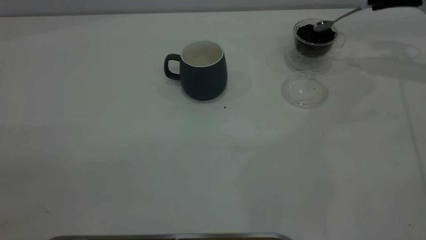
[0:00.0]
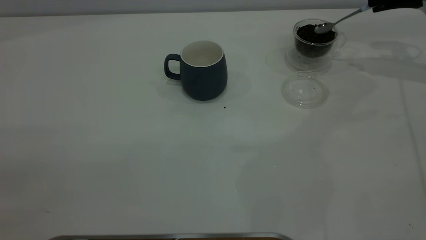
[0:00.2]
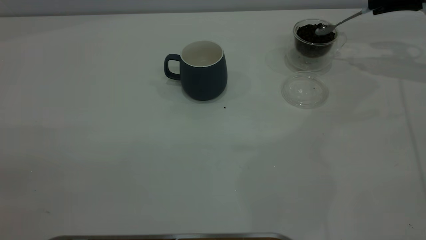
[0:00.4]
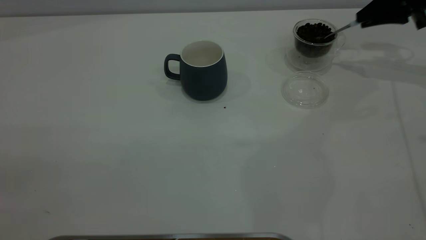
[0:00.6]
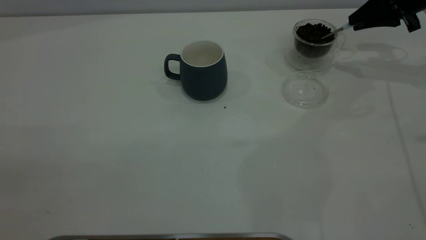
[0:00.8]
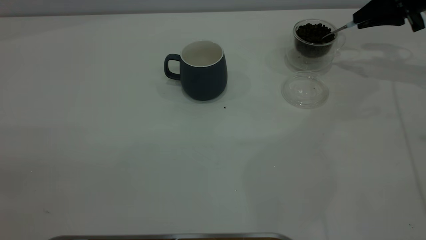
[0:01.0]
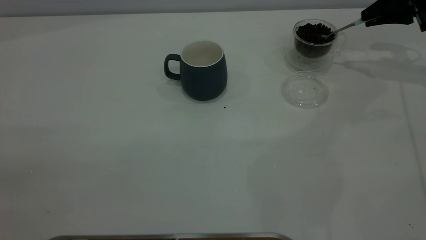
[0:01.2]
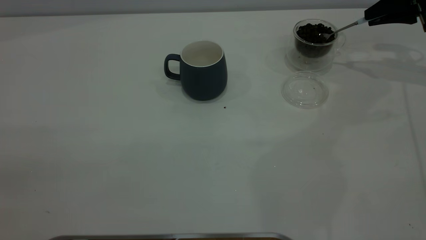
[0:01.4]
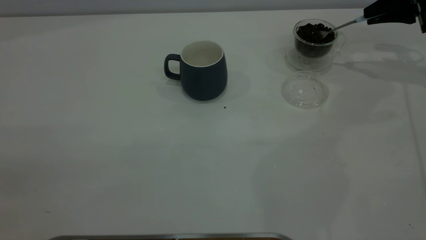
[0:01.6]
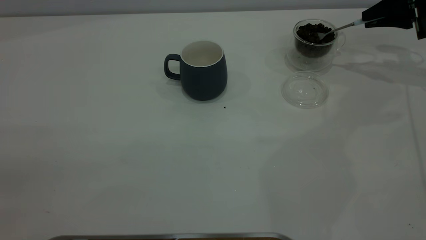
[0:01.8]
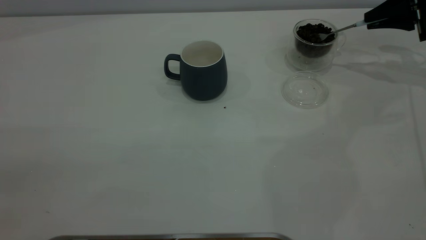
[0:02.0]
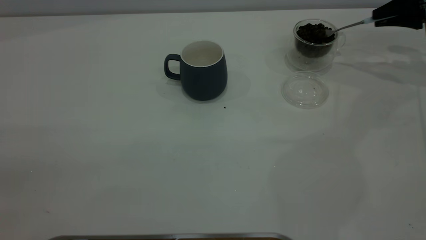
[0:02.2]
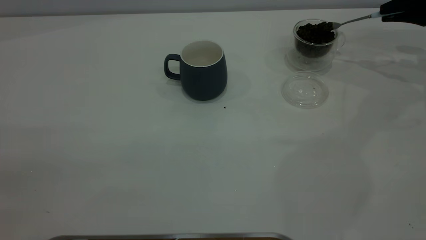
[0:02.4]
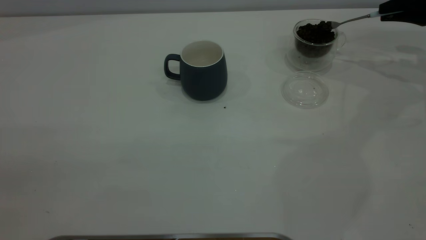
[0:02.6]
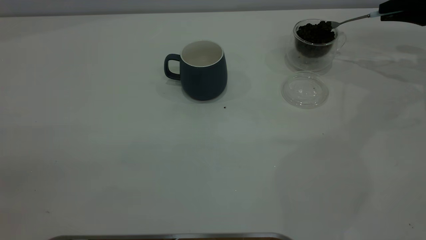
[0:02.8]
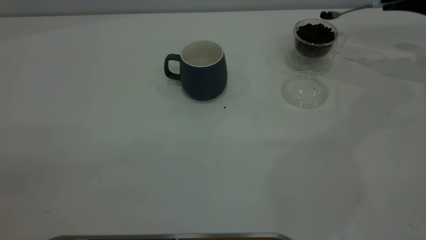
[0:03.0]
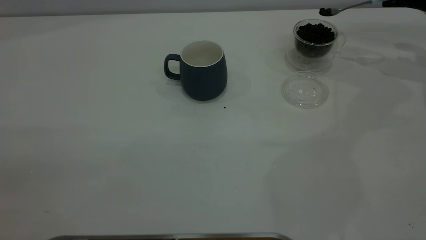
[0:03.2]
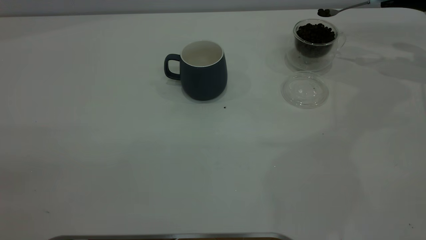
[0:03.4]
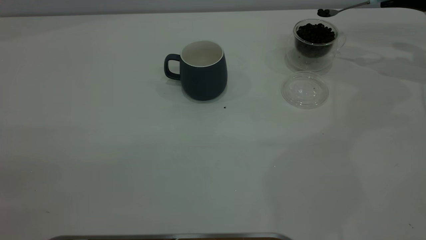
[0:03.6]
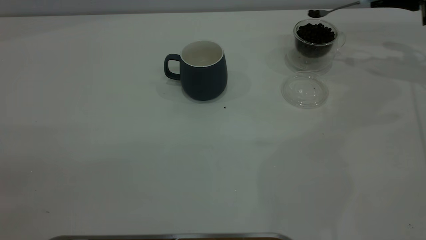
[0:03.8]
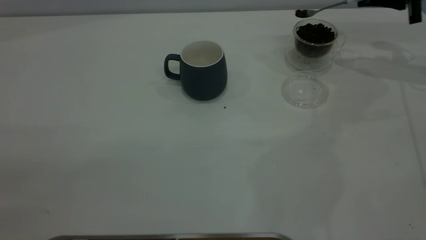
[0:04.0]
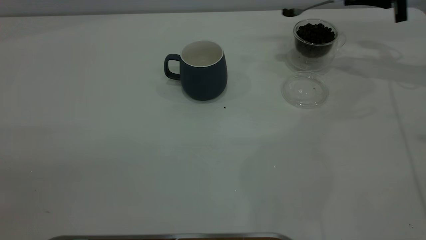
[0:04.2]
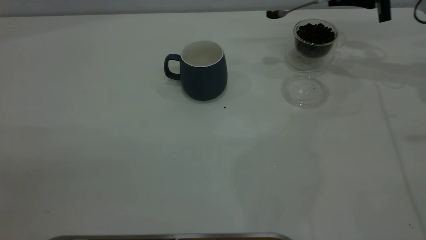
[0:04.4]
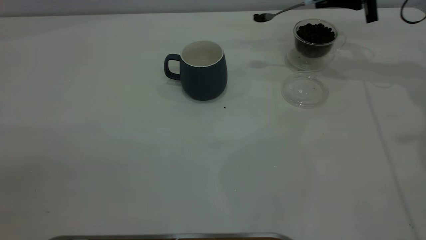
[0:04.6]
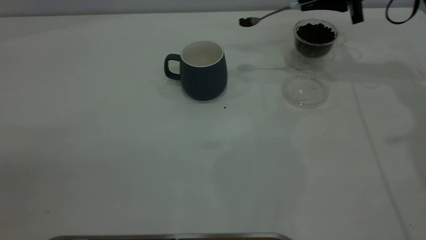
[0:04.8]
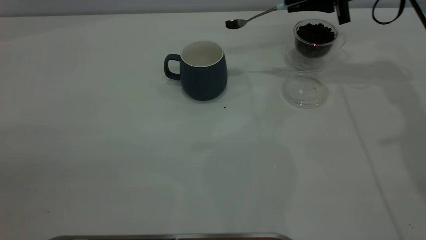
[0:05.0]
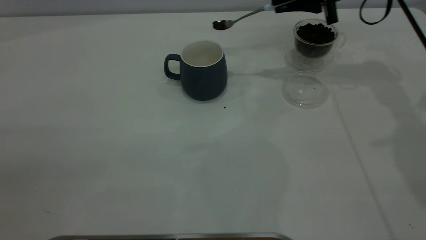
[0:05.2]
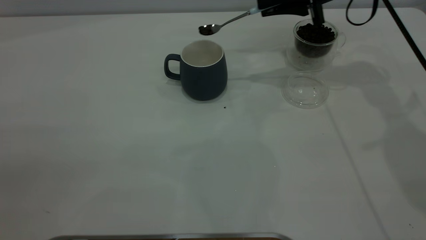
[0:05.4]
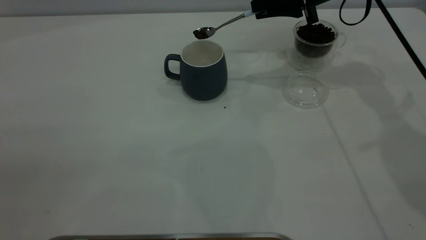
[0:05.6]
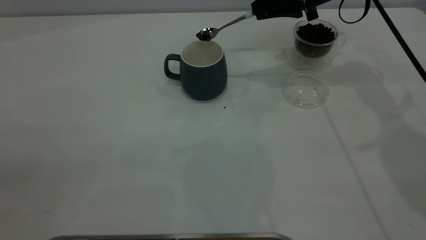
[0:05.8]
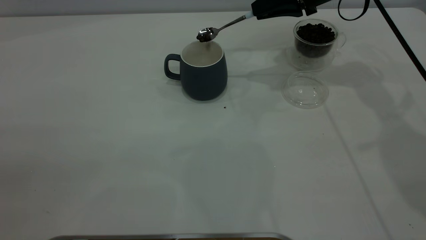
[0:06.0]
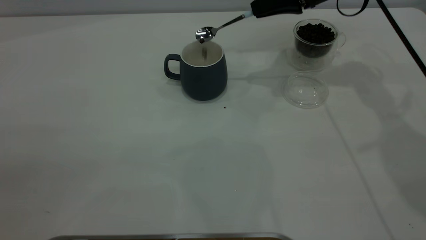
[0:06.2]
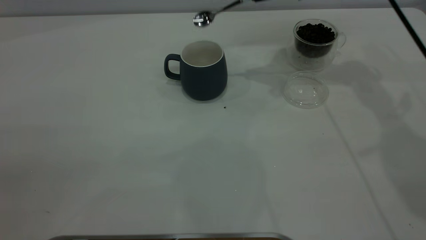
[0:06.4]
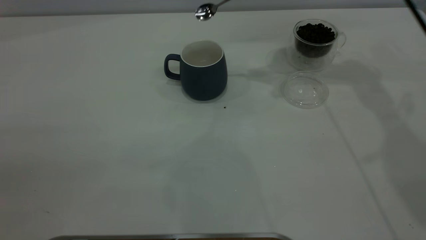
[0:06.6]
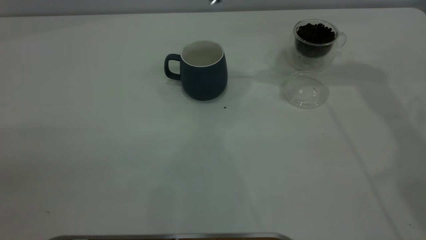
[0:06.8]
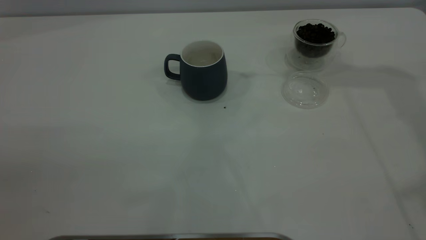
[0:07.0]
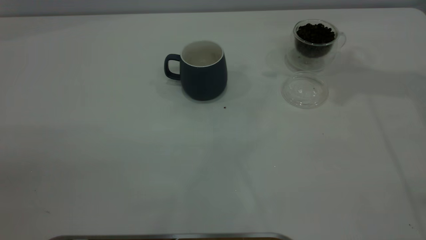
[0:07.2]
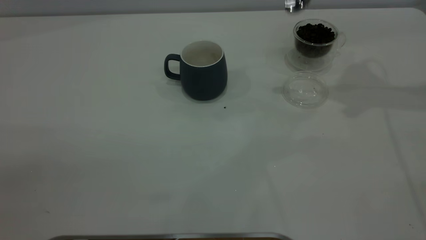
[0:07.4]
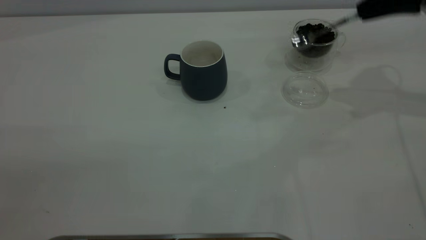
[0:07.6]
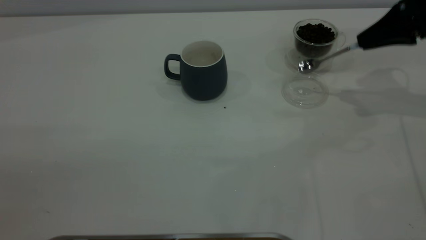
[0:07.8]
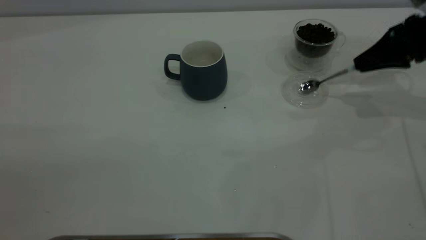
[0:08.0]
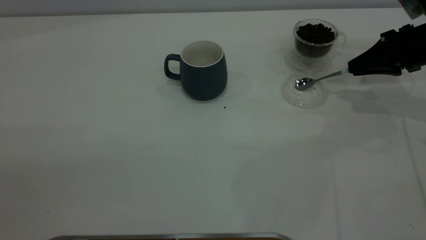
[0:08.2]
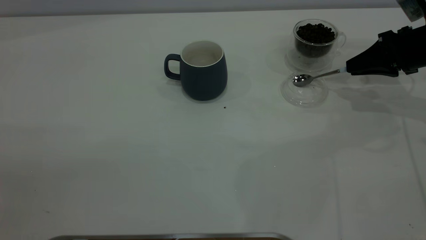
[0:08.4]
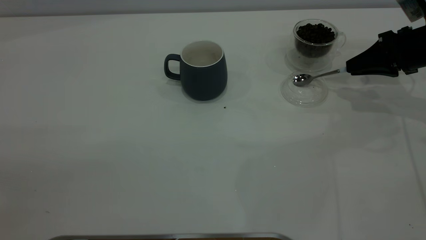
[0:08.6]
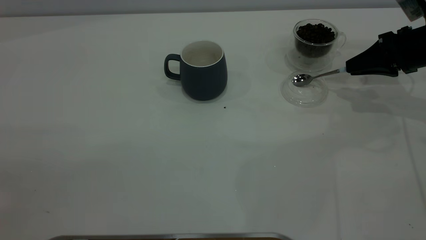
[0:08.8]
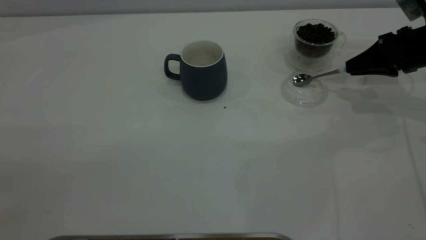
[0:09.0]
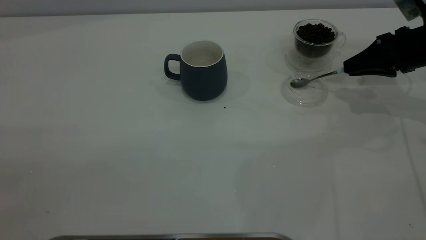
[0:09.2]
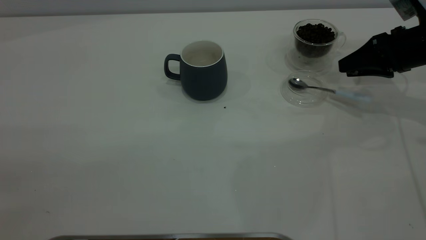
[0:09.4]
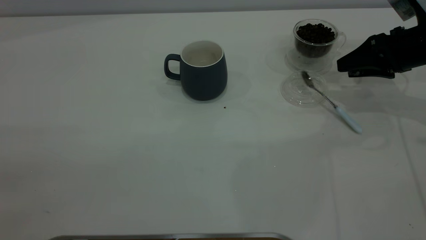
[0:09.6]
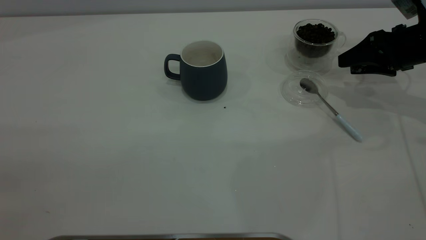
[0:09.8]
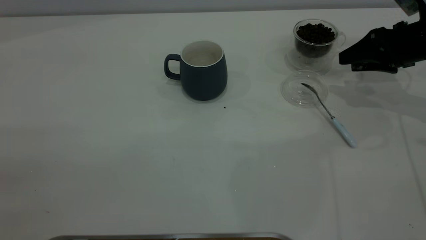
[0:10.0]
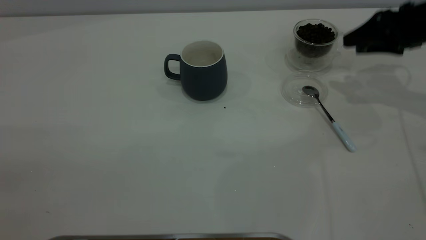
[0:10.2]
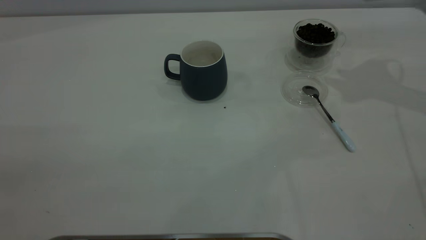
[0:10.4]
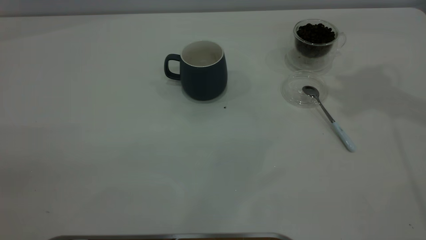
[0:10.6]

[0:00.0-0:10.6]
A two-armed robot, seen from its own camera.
Task of the whole recording: the left gripper place the grey cup in the center of the table, the right gripper take the blue spoon from the cup lid and scoop out the coffee beans from the coffee cup and put them into the grey cup, the right gripper put the spoon back into the cup lid.
Step, 0:00.0 to 0:06.2: Scoop a spoonful of beans into the cup.
Step, 0:06.6 to 0:10.0: Place the spoon back in its original place.
0:00.0 to 0:03.0: The grippers stay close to where they were, moving slightly.
0:03.0 to 0:04.6: The right gripper shifts roughly 15 cm to the left.
0:04.6 to 0:06.0: The right gripper travels to the left by some 10 cm.
0:06.0 to 0:07.6: The right gripper shifts roughly 15 cm to the right and backward, and reaches about 20 cm upward, then returns.
0:07.6 to 0:09.0: The right gripper goes some 10 cm downward.
0:09.0 to 0:10.6: The right gripper moves upward, some 30 cm, and opens up.

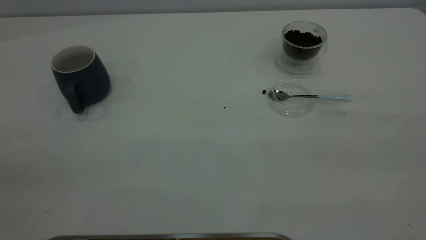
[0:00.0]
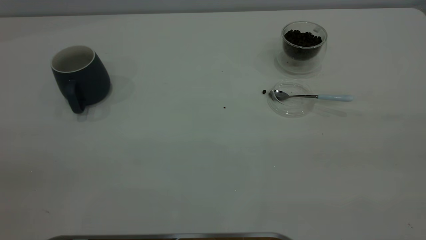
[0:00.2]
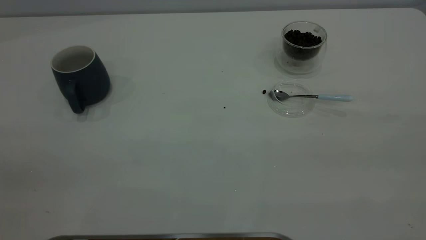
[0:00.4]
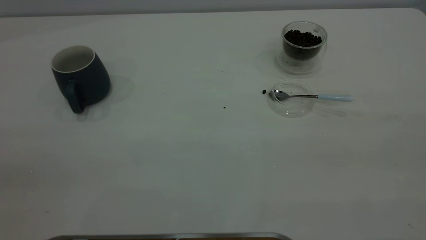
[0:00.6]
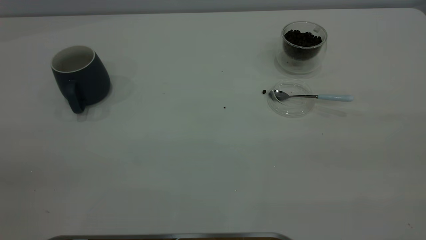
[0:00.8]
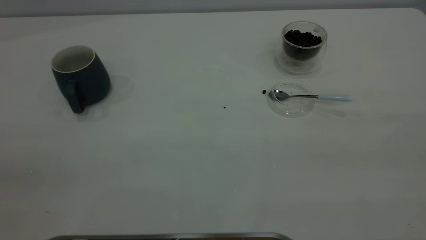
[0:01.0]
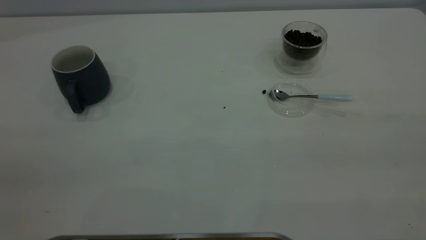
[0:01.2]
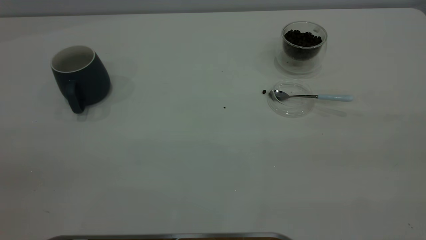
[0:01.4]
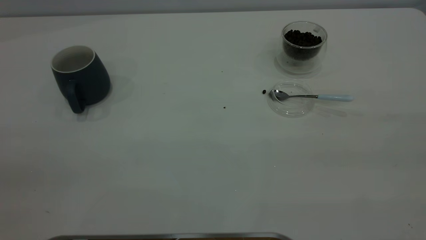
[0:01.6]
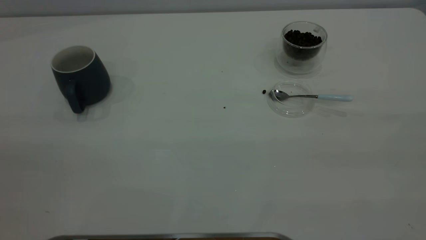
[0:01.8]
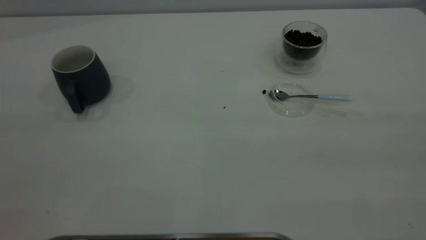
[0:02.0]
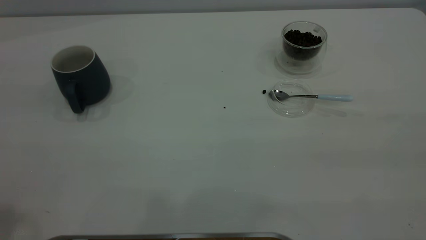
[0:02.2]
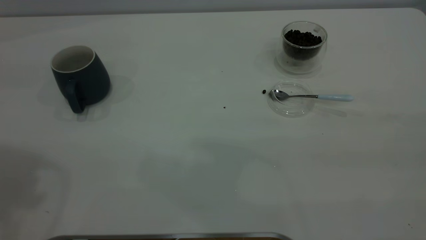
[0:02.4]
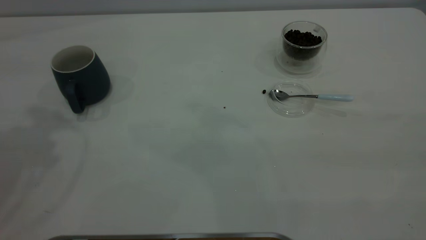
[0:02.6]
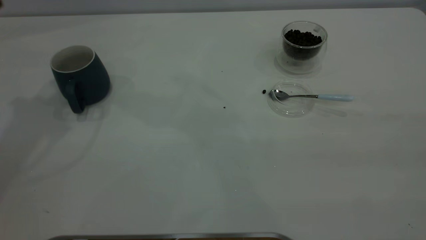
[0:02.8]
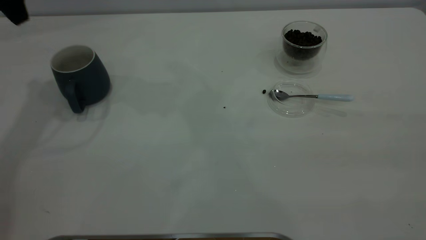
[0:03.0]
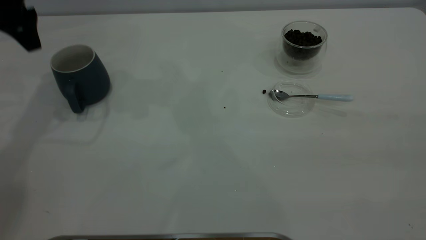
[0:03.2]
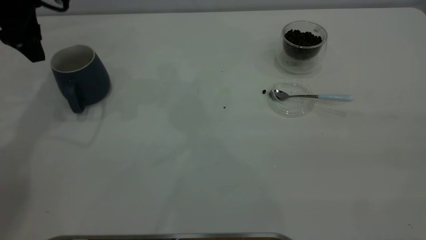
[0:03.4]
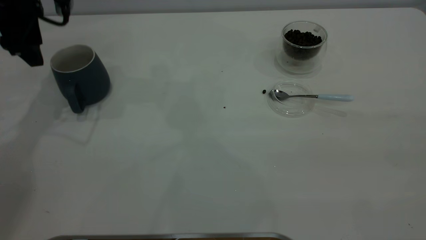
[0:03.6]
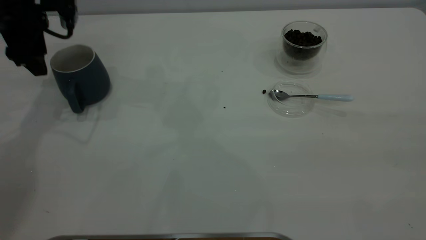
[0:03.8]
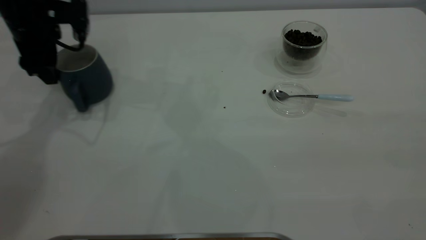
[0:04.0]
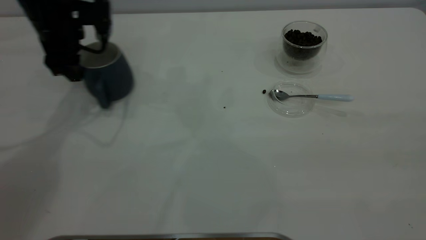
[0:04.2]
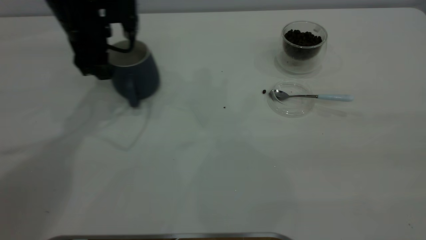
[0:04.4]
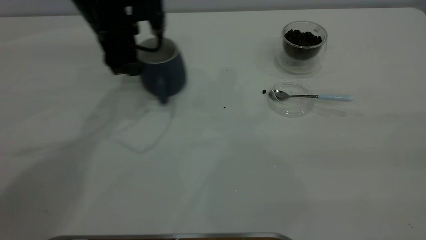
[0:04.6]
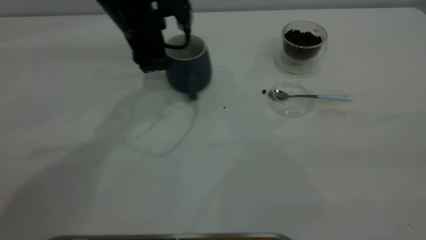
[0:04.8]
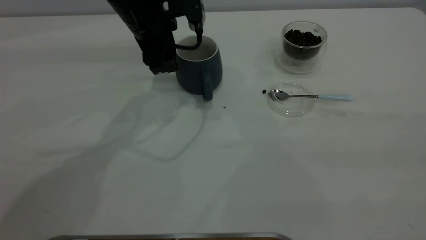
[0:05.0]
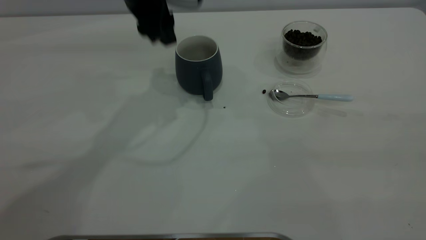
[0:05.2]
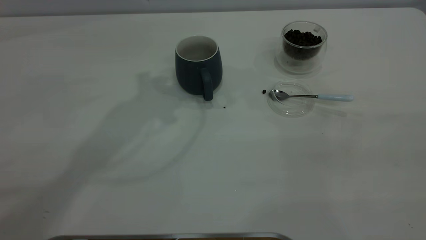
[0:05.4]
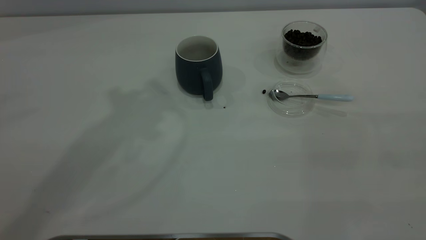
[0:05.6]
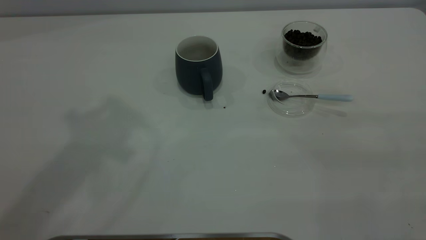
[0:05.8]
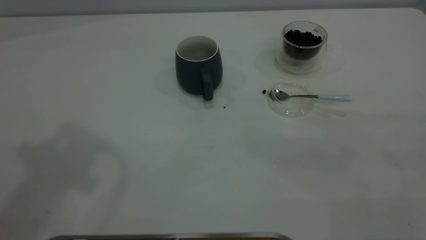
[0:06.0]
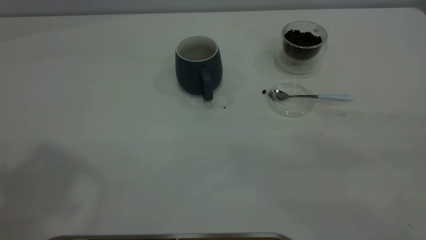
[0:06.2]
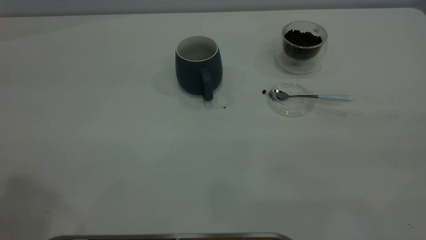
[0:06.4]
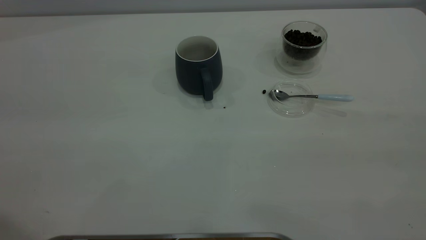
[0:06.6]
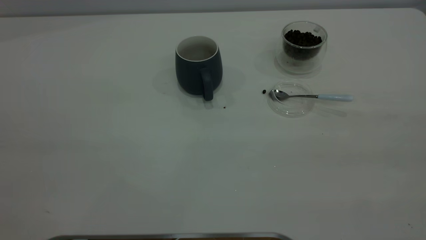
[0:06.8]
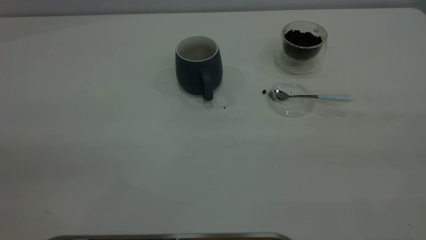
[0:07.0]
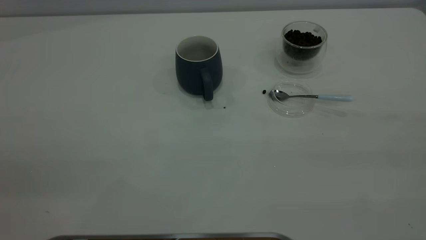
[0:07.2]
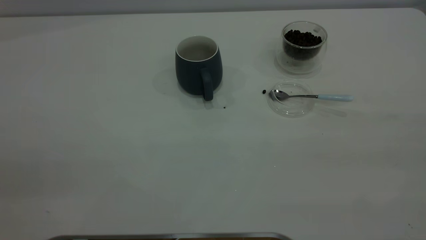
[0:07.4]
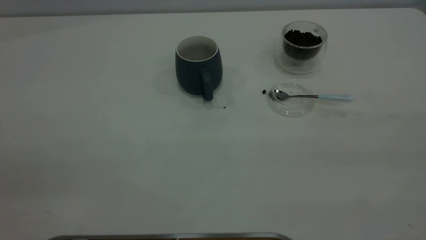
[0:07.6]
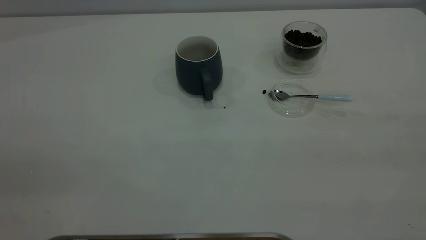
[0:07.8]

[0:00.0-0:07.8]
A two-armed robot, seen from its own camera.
Task of the whole recording: the left gripper place the grey cup in the center of the table, the right gripper take the blue spoon from the cup lid and scoop out the coffee beans from the coffee cup and put them into the grey cup, the right gripper put the spoon back into the cup lid.
Step, 0:00.0 to 0:05.2: Move the cup to the center of view.
0:00.0 to 0:01.6: Both grippers stay about where they are.
0:01.6 to 0:03.2: The left gripper goes some 40 cm forward.
0:03.2 to 0:04.6: The left gripper goes some 15 cm to the right and downward.
0:04.6 to 0:06.2: The left gripper moves upward and backward, approximately 40 cm.
